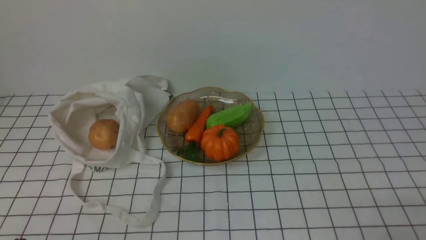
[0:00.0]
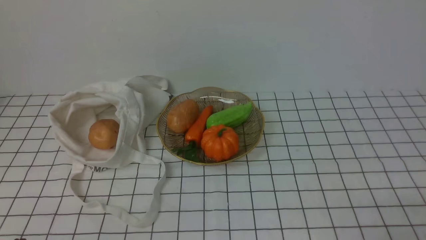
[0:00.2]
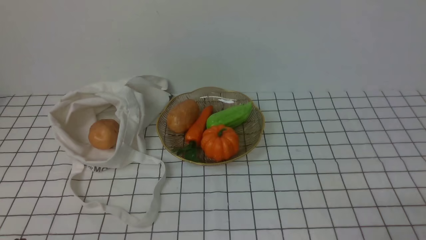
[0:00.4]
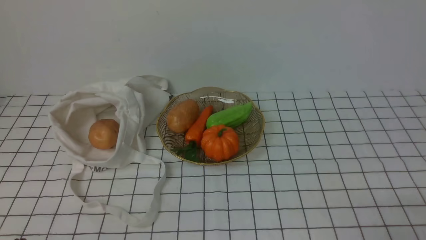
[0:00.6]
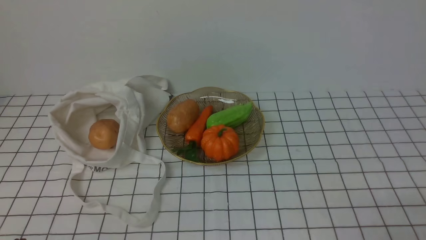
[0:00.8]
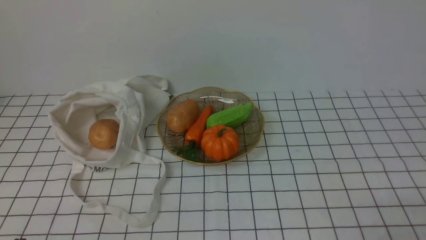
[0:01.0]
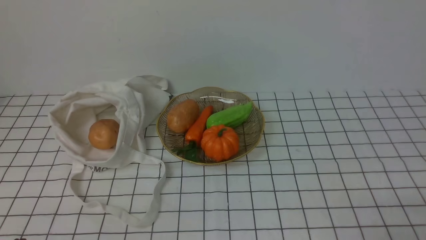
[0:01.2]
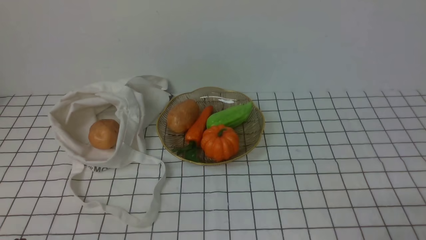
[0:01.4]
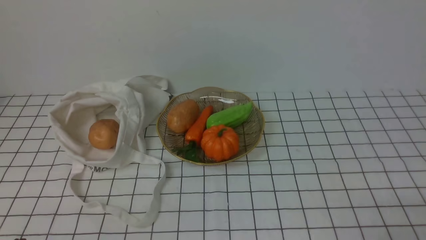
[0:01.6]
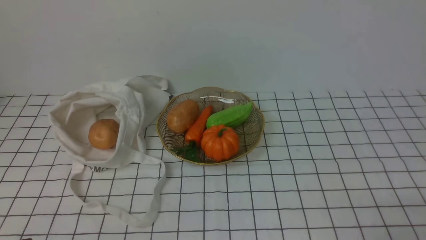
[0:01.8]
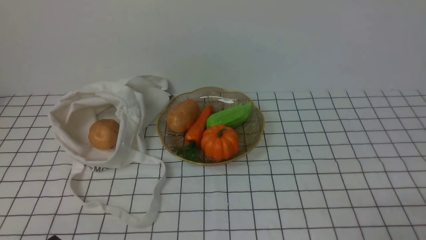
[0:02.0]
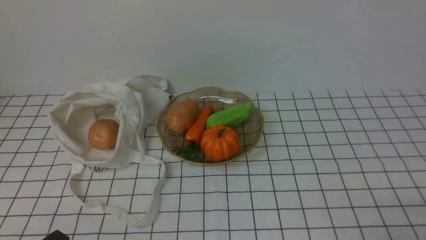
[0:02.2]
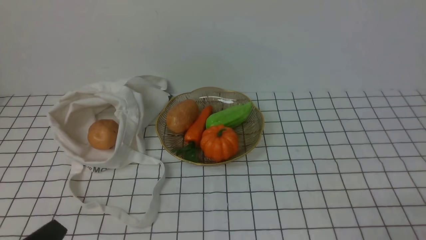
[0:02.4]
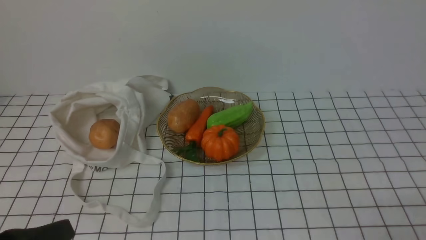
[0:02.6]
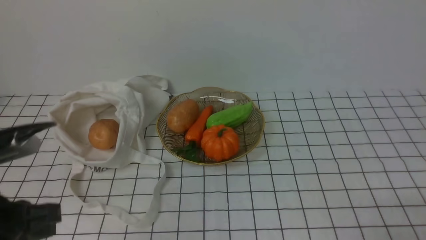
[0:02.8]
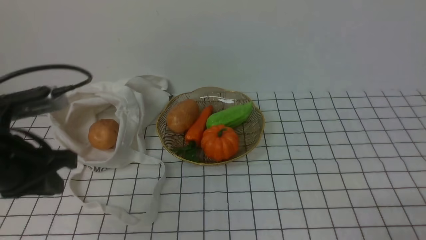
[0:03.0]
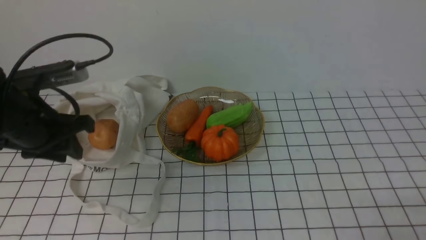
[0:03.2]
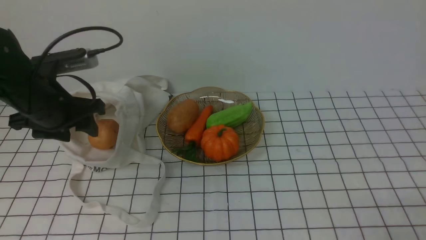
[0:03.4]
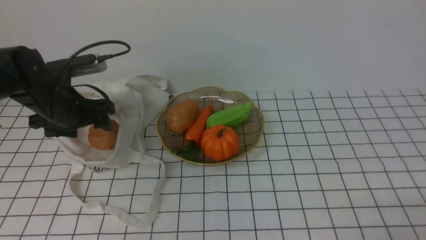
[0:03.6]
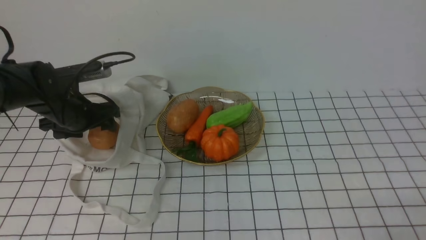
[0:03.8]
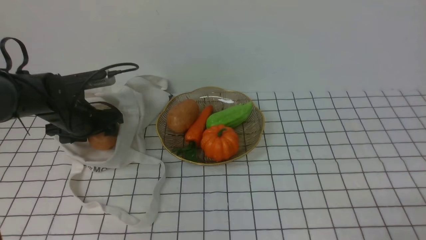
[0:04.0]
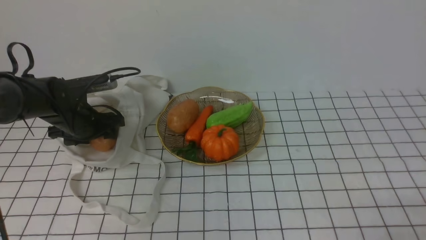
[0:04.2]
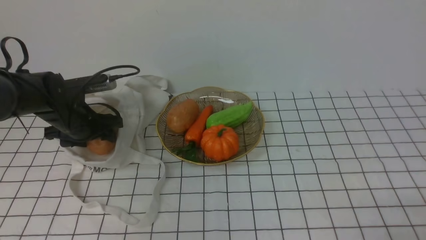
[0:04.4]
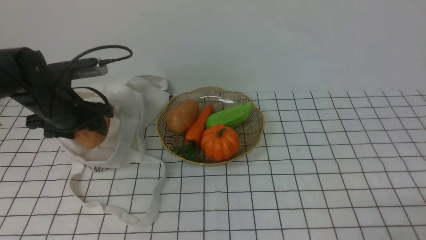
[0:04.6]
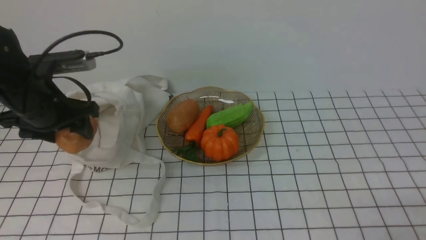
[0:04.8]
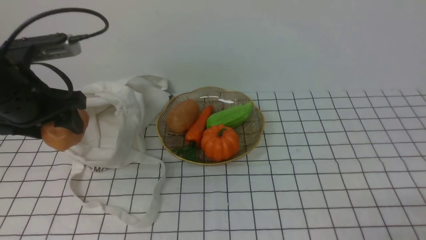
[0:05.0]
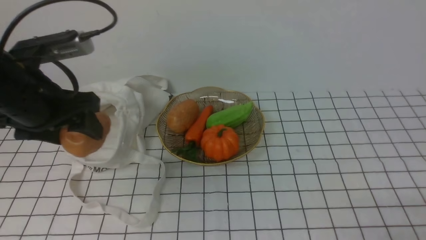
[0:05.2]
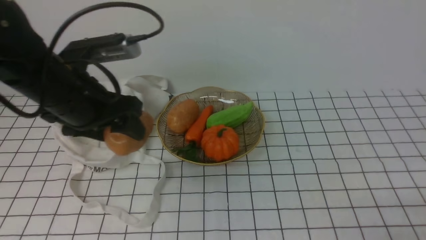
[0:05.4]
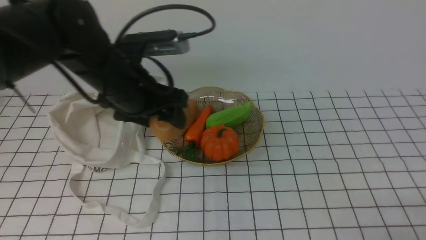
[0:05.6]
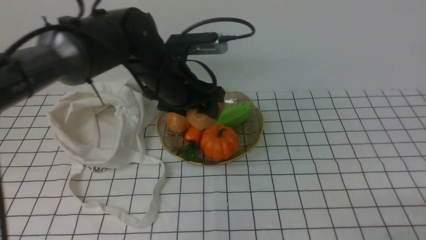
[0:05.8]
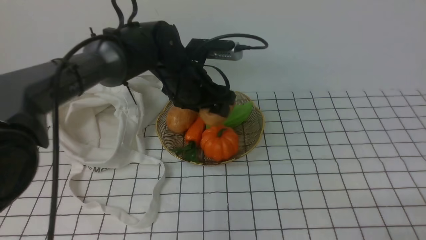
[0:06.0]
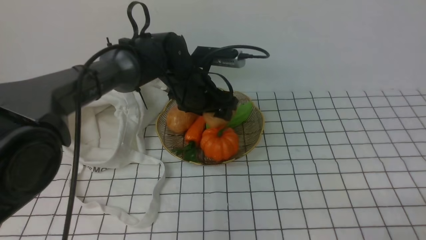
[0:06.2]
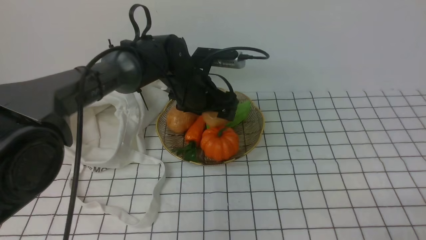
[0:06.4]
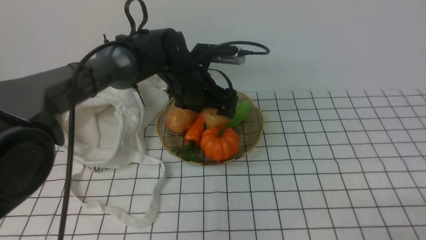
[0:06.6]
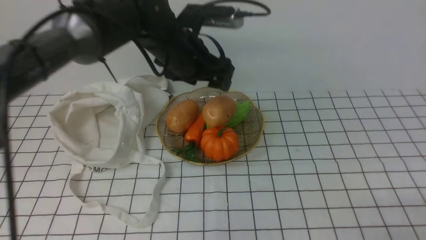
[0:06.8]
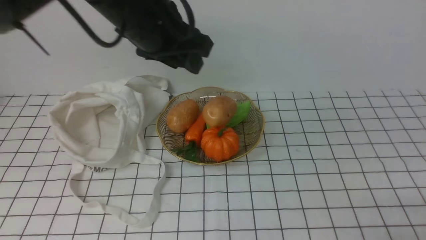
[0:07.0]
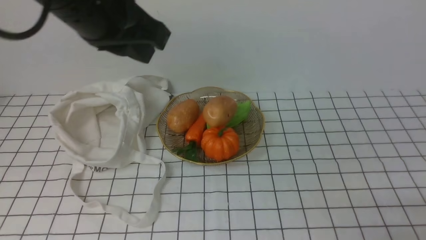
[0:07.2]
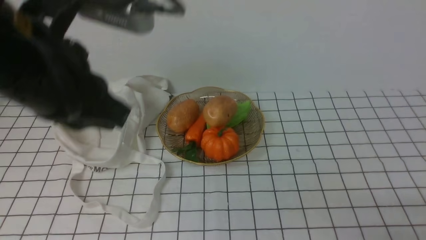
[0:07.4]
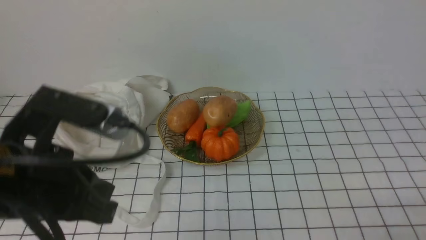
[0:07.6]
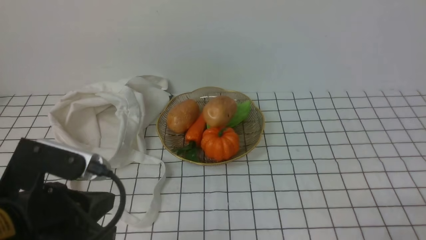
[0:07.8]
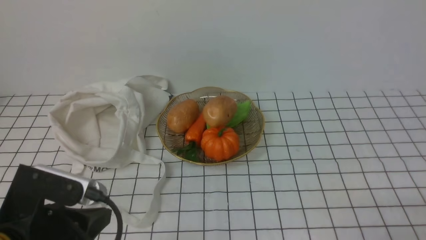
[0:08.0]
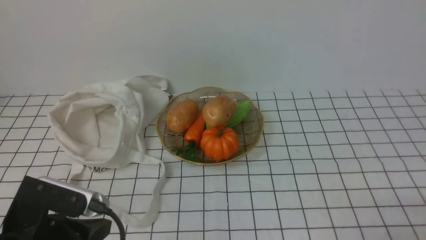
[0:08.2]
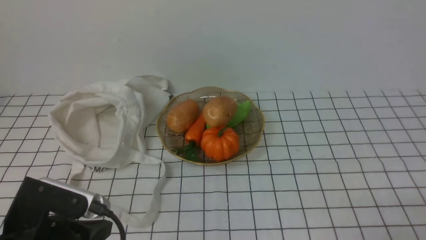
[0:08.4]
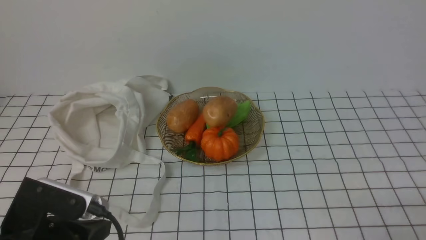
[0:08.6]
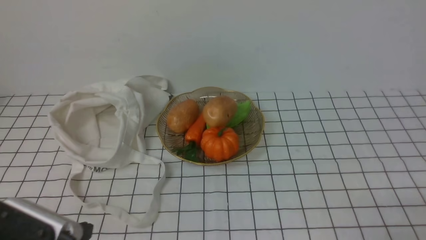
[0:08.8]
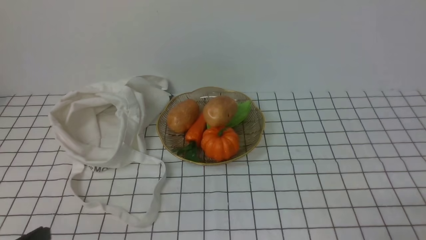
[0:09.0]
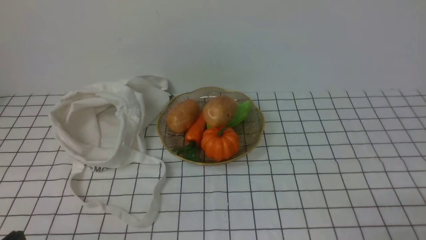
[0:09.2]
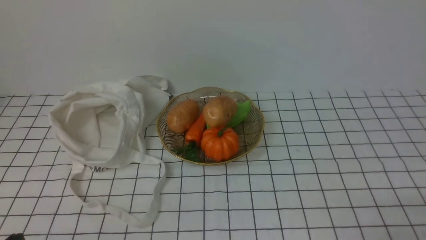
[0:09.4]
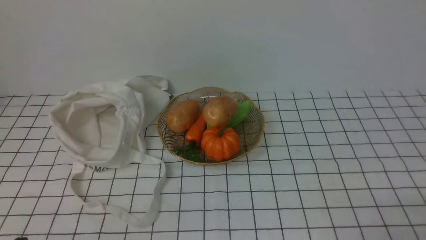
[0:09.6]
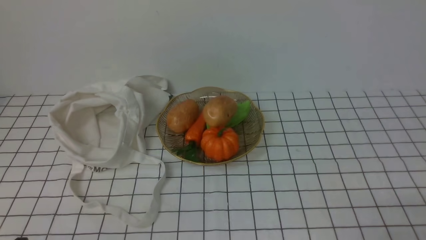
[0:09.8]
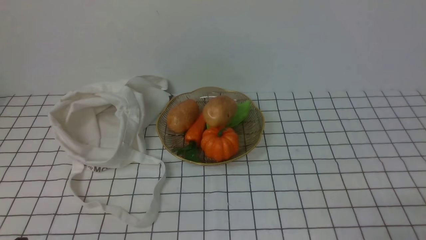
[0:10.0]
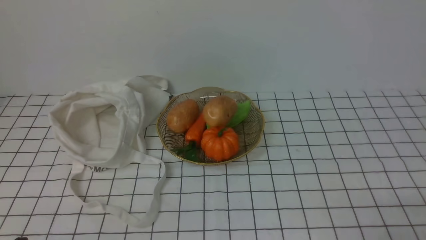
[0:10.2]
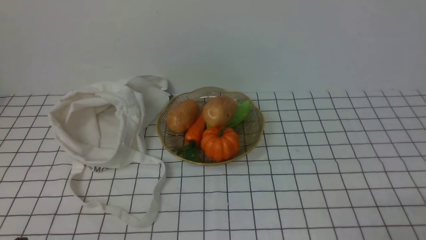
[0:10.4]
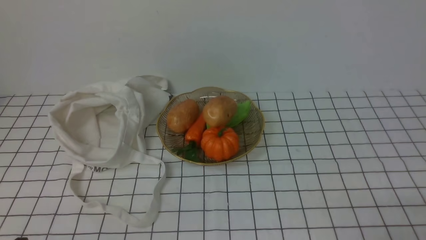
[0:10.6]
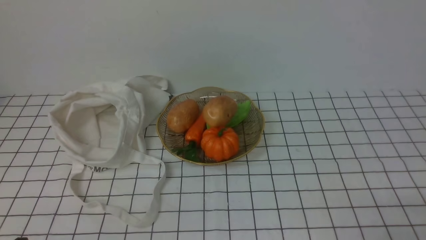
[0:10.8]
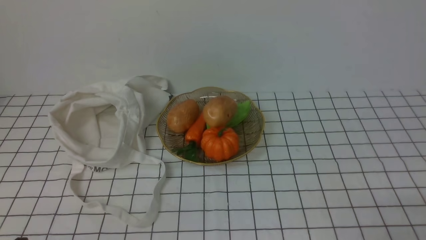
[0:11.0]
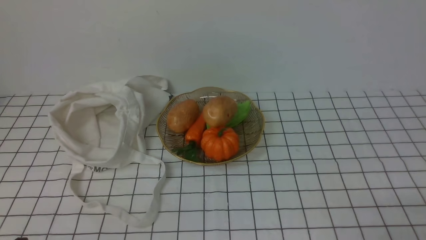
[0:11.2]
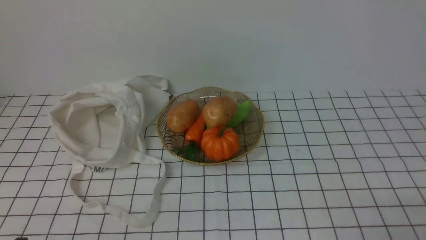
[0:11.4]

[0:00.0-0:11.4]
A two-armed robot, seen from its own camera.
Task of the whole recording: take vegetables from bag on white checkered tablecloth place on plate.
Step, 0:00.0 to 0:04.2: Grasp the potato with left gripper.
Step, 0:04.4 to 0:06.6: Place the potato on the plate with left gripper.
0:00.0 to 0:01.4: Both grippers stay put.
0:01.4 to 0:02.8: The left gripper moves upward and forward, some 15 cm.
0:02.8 to 0:04.2: The left gripper heads forward and downward, covering roughly 30 cm, and opens up.
0:04.2 to 0:05.6: The left gripper moves to the right, upward and backward, approximately 20 cm.
0:05.6 to 0:07.2: The left gripper is displaced upward and backward by some 15 cm, and closes up.
0:07.2 to 0:08.6: The left gripper moves downward and backward, approximately 25 cm.
0:08.6 to 0:10.0: The left gripper moves backward and to the left, roughly 10 cm.
0:10.0 to 0:11.4: Both grippers stay put.

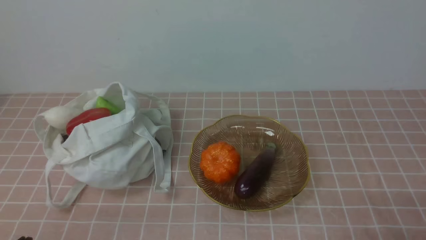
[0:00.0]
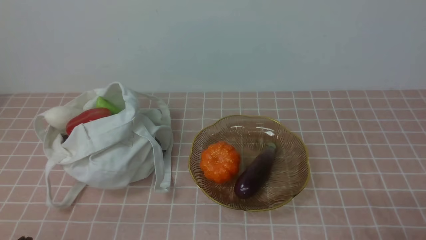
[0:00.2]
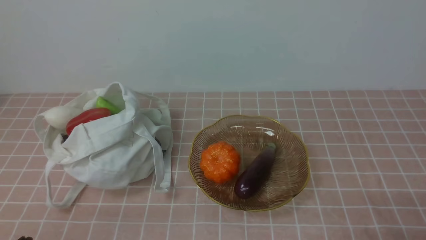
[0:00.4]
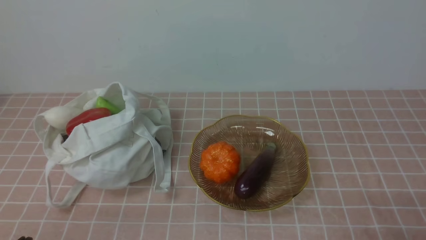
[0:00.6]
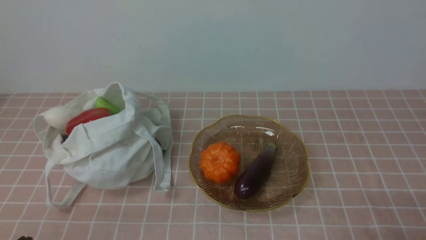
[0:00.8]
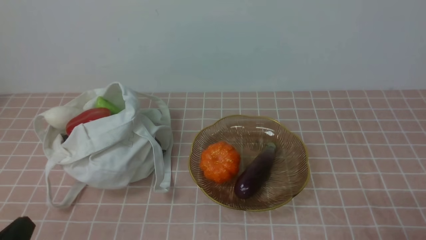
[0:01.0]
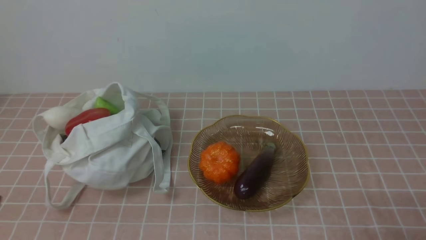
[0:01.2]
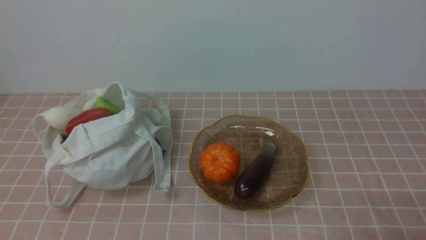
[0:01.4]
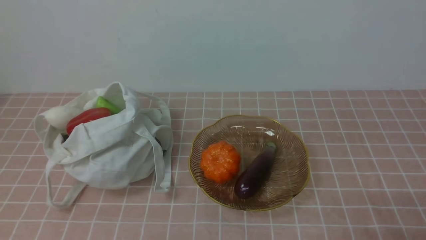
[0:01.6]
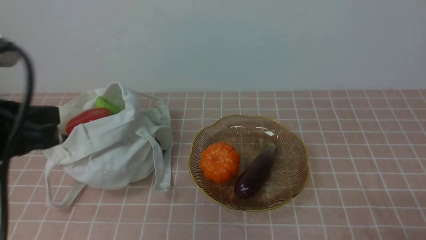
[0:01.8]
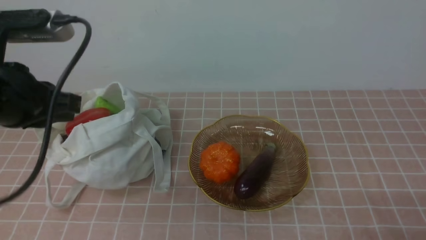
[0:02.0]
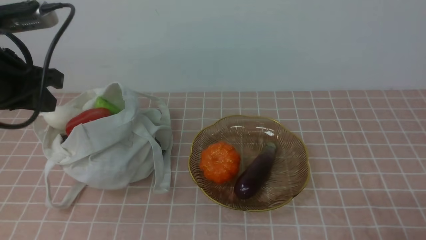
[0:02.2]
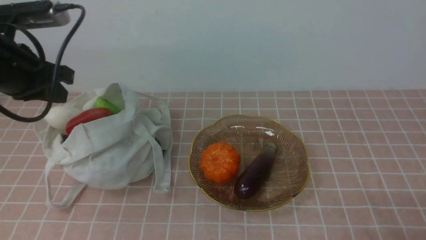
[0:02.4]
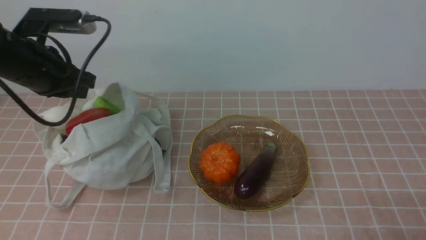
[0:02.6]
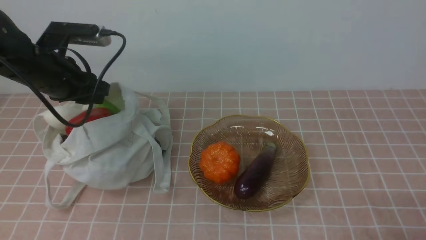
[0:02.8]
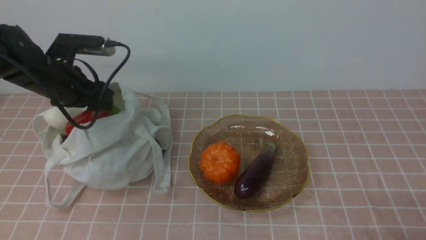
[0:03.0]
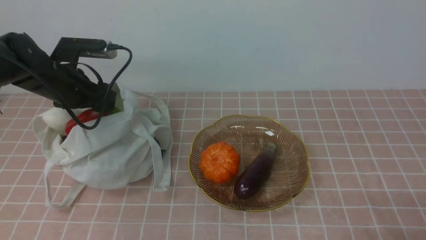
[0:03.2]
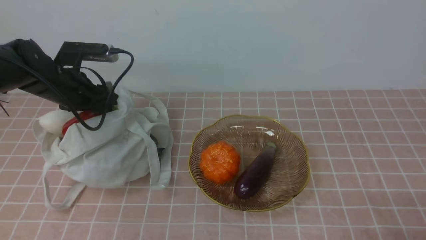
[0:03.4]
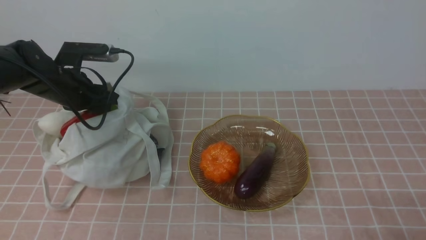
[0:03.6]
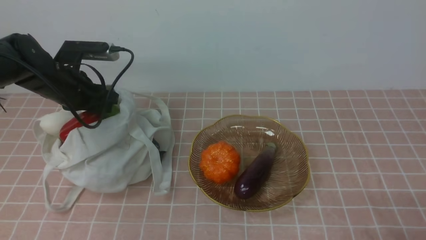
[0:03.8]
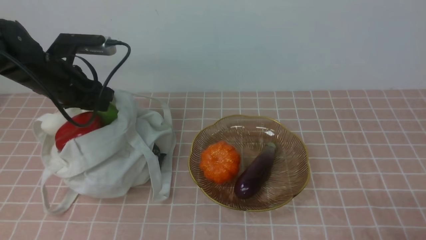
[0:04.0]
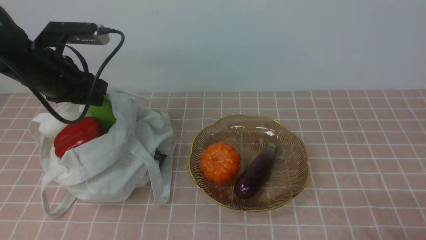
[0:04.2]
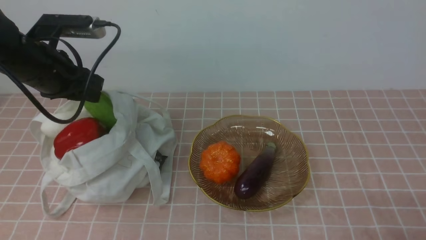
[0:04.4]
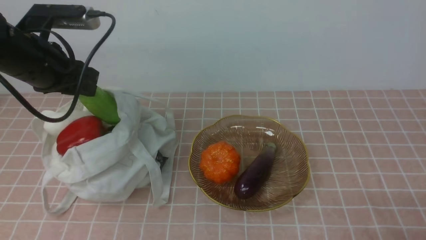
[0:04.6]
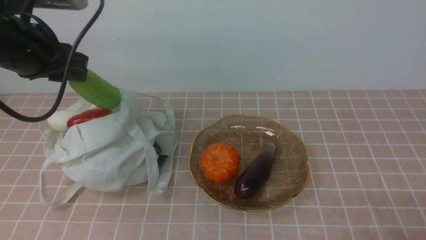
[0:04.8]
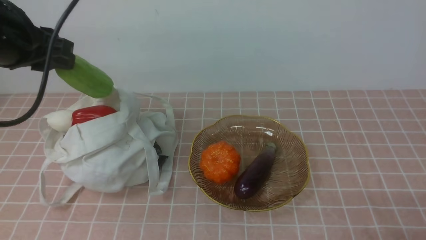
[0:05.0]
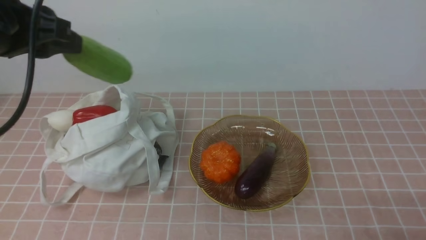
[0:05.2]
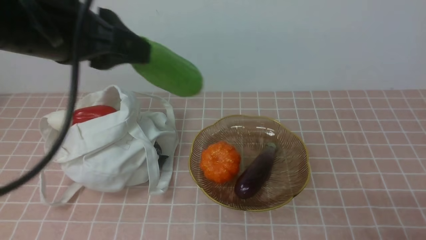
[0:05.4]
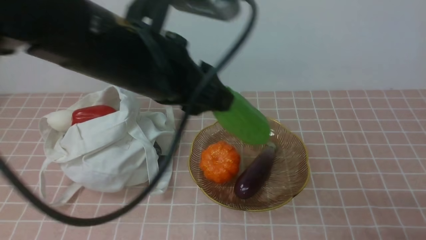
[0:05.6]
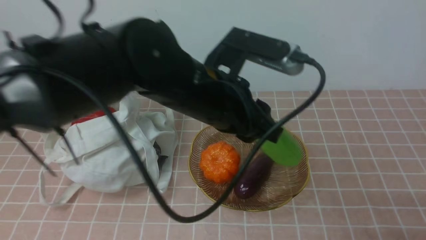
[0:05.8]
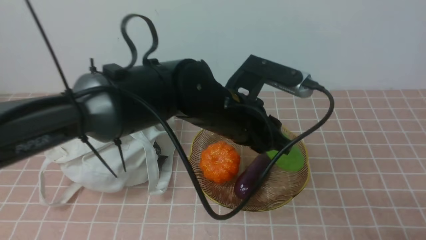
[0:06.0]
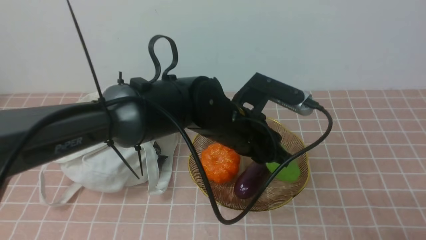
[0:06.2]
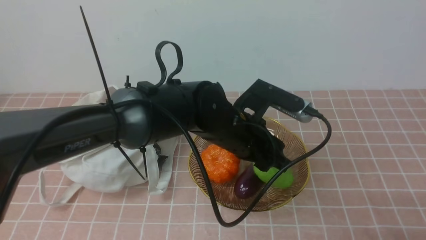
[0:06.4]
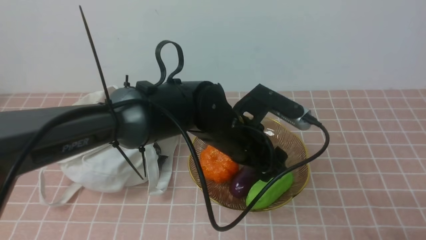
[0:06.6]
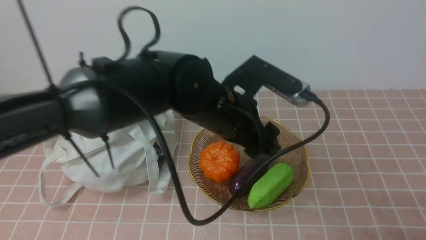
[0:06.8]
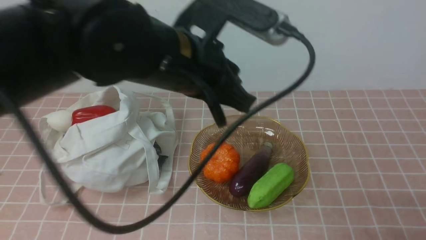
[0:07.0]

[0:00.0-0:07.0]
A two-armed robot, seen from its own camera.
Task of the whole recording: take vegetables from bag on pink coffee tablecloth place on plate.
Step, 0:00.0 to 0:03.6: Grasp the bitter melon with left gripper.
Step, 0:03.8 to 0:07.0: Place the bitter melon on the plate with left gripper.
0:01.4 to 0:02.8: The left gripper shifts roughly 30 cm forward, and opens up.
0:02.8 to 0:04.2: The left gripper opens, then closes once more.
0:04.2 to 0:05.6: The left gripper is displaced to the right, upward and backward by approximately 20 cm.
0:05.6 to 0:07.0: The left gripper heads to the right and downward, covering approximately 10 cm.
